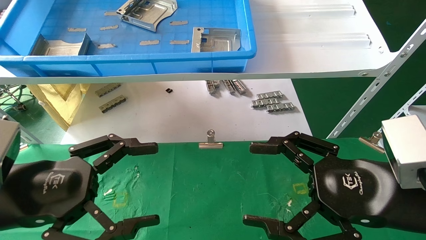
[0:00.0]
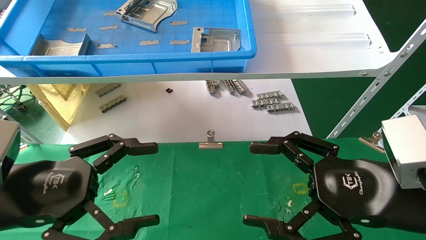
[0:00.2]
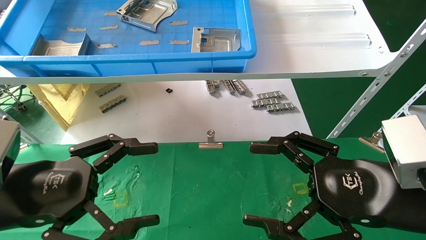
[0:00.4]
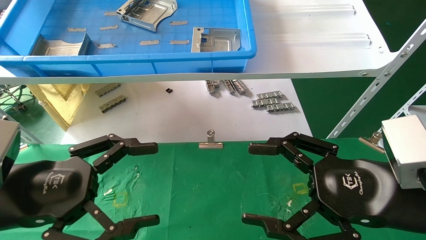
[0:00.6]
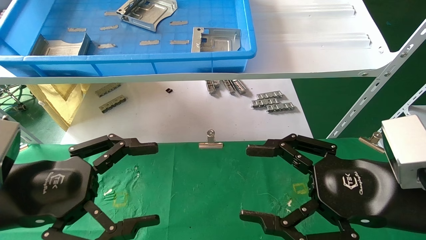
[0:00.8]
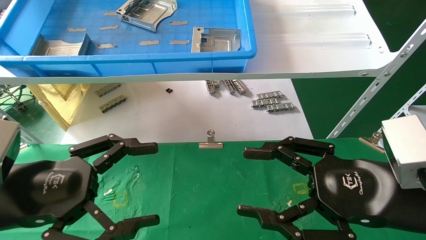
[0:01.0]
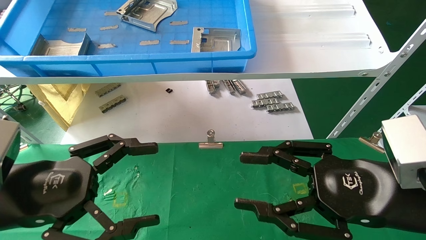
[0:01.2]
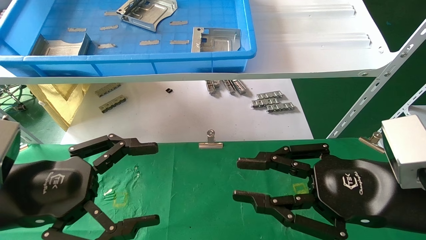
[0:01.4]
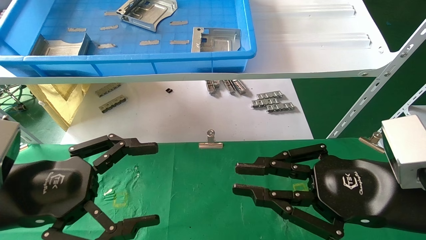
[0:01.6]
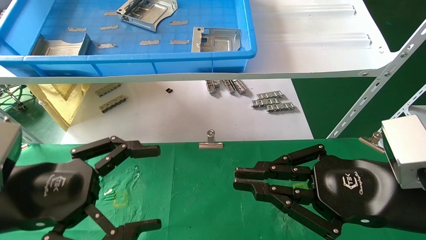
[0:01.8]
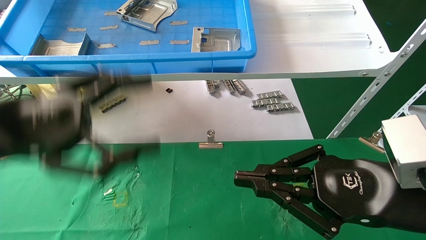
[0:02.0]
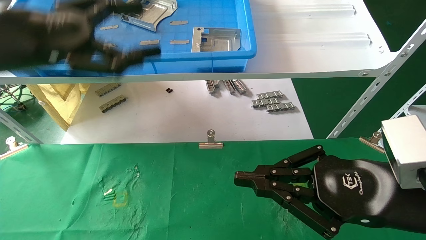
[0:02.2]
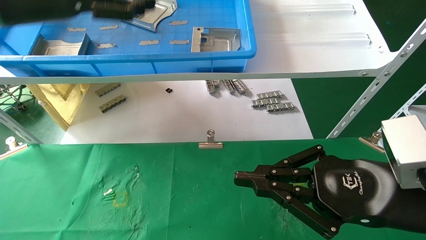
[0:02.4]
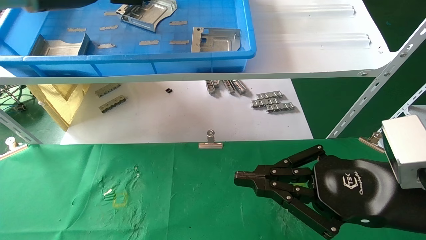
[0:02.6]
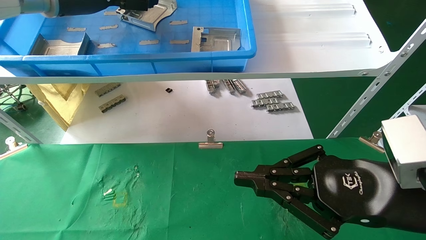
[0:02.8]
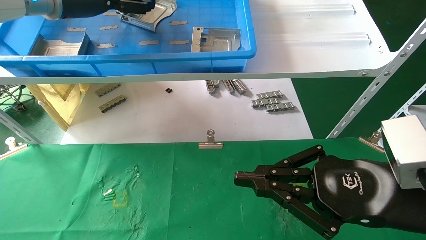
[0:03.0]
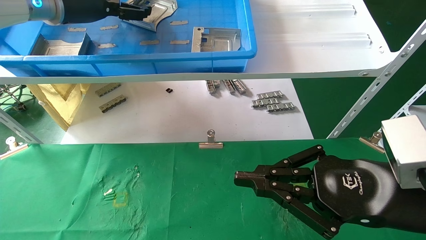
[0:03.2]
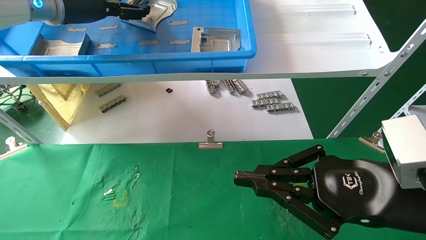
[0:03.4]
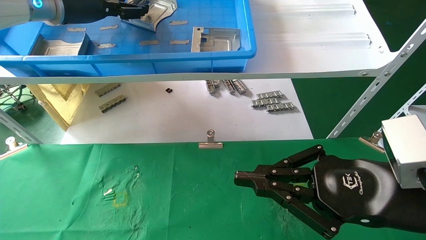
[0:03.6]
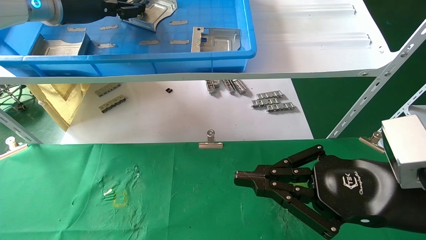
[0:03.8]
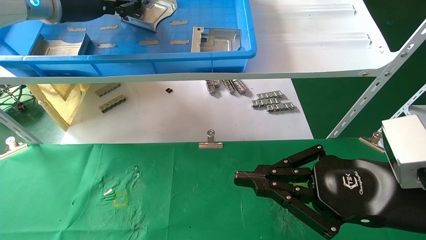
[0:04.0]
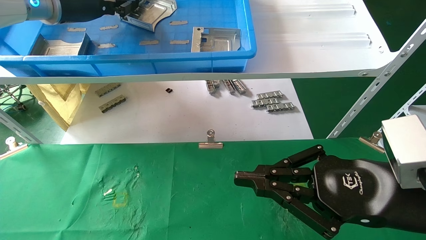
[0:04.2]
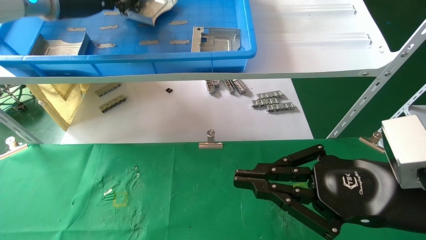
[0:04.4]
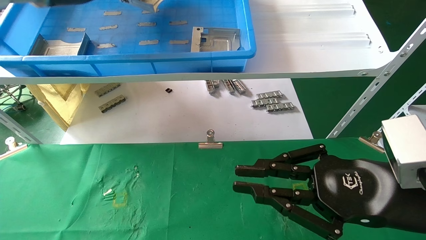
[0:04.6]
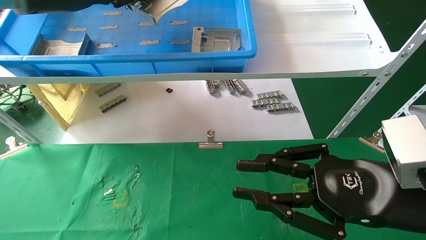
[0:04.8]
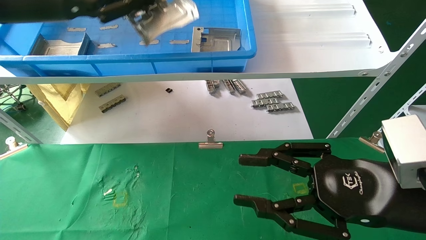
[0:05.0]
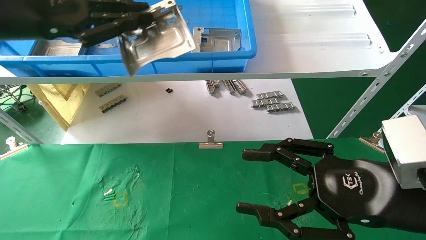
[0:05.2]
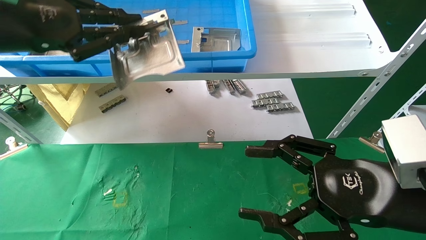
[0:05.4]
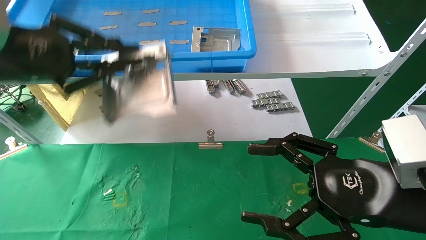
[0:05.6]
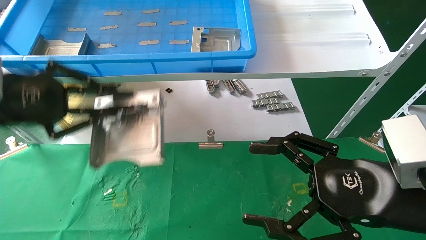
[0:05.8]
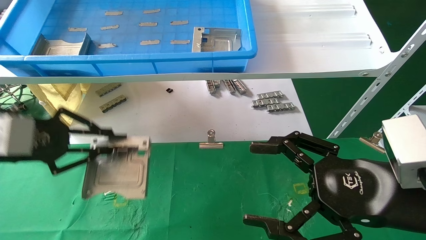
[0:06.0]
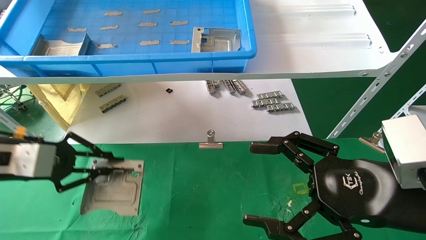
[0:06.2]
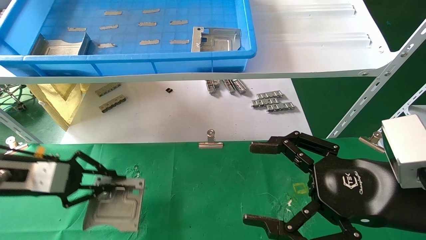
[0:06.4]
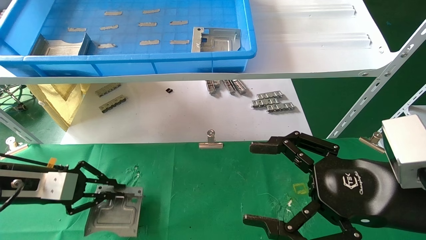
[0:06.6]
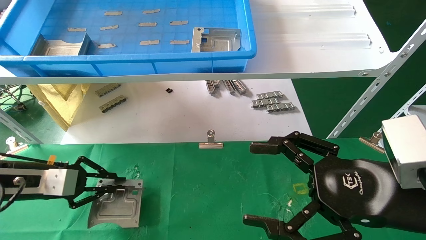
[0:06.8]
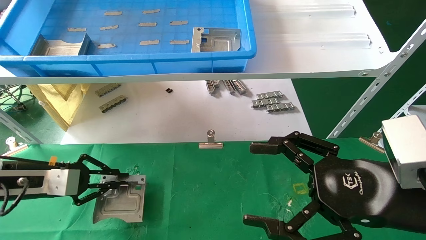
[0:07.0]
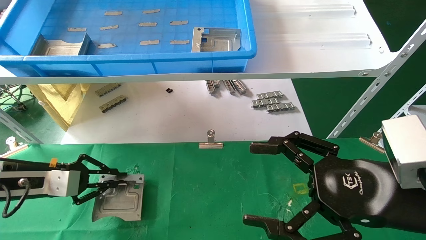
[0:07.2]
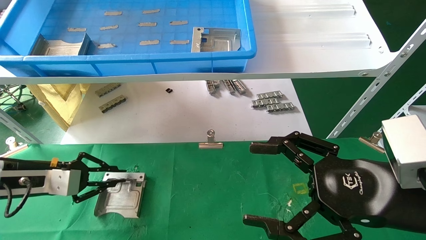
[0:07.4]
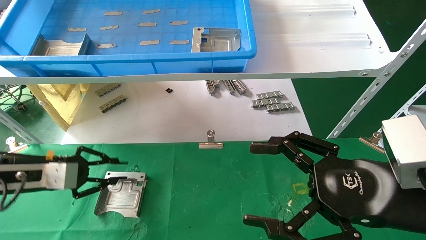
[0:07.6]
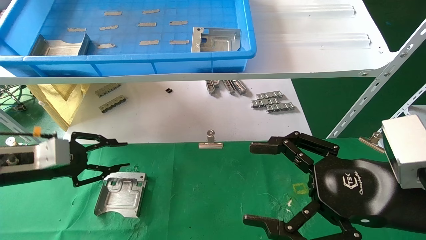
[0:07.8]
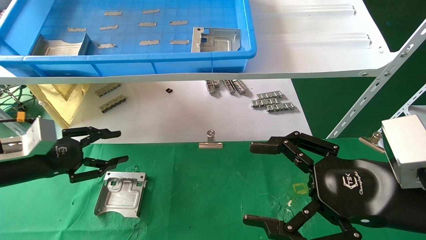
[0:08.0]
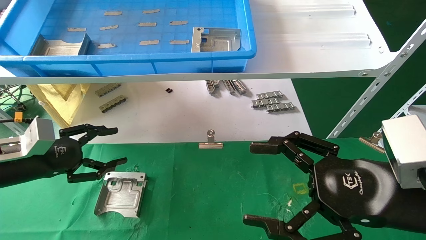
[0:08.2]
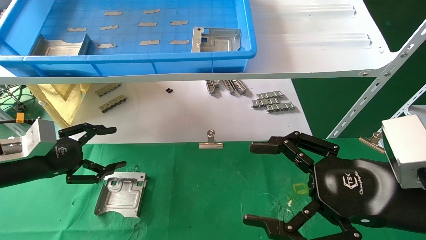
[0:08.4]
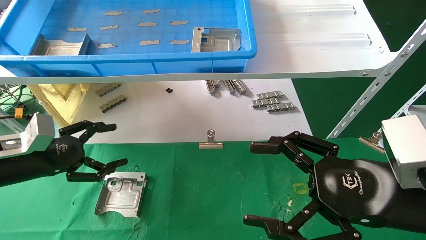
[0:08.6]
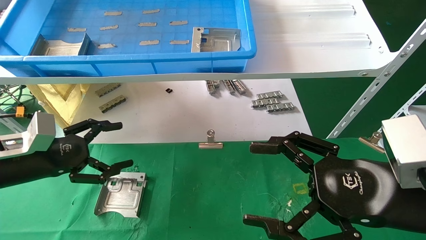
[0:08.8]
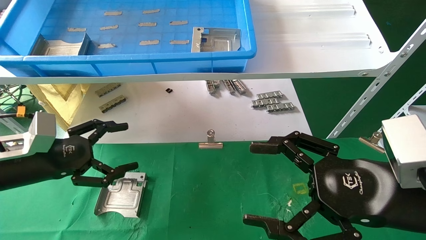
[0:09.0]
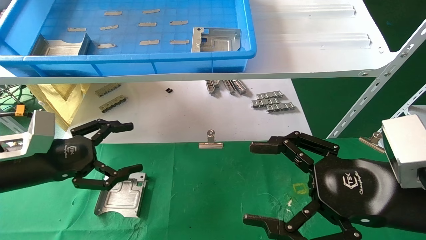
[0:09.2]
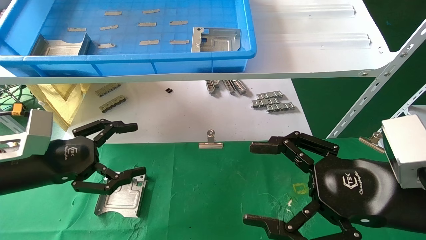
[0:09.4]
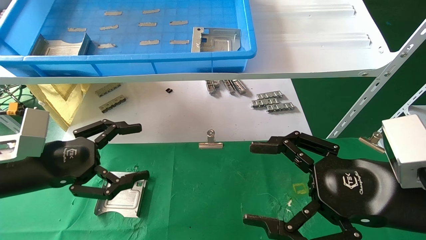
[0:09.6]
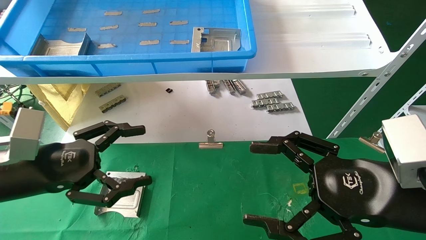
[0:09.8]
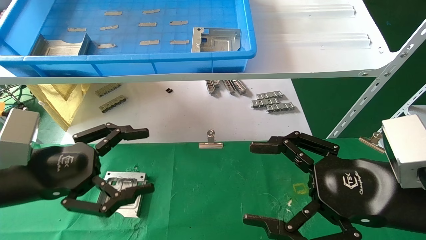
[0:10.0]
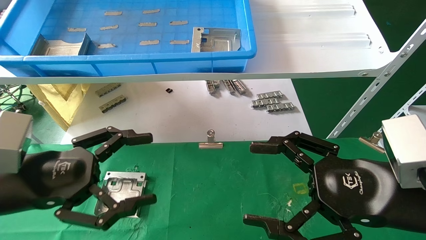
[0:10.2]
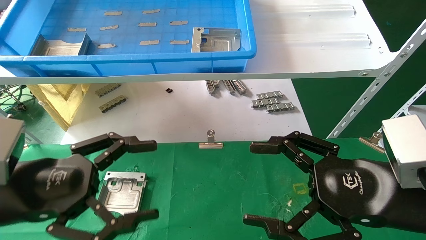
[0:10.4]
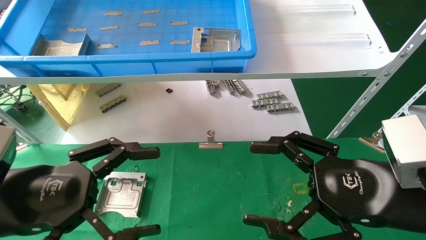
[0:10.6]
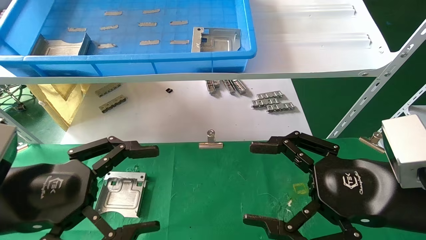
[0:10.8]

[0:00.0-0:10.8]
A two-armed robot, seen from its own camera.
Task of the whole recording: use the mechanical arm to pick up the parts and place them on the table.
Step, 1.6 to 4.6 s: Pick up the hard drive bracket from the feeding area.
Step, 4.8 to 7.6 s: Place the hard drive bracket into the box.
0.0 to 1.6 s: The right gripper closes.
1.6 to 3.0 s: The left gripper is displaced upward and forward by roughly 35 cm.
3.0 to 4.6 s: The left gripper closes up.
4.6 to 6.2 s: The left gripper is displaced downward and backward by approximately 25 cm. The right gripper opens.
6.2 to 7.8 s: The left gripper heads downward, covering some 5 cm.
7.8 to 9.2 s: The left gripper shifts by about 5 cm, and opens.
9.2 to 10.8 s: The left gripper heads backward and to the right, covering some 15 cm.

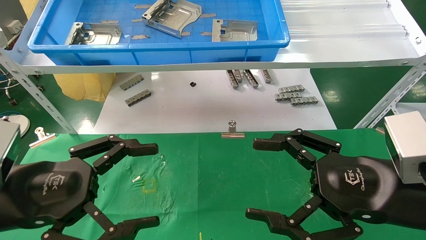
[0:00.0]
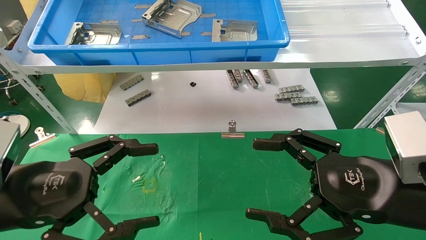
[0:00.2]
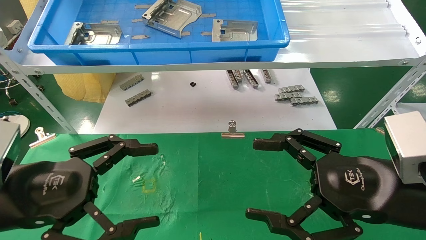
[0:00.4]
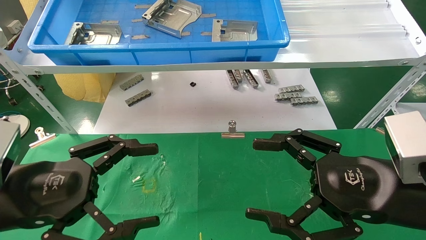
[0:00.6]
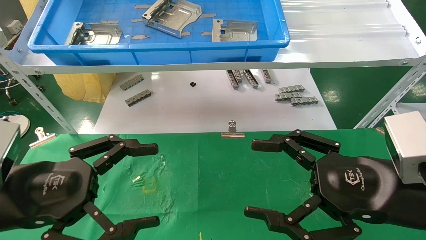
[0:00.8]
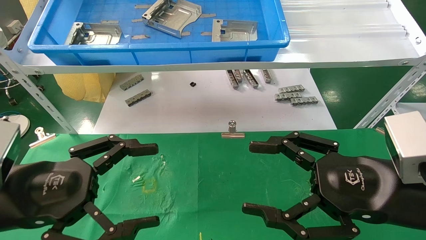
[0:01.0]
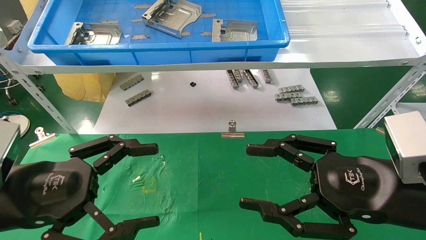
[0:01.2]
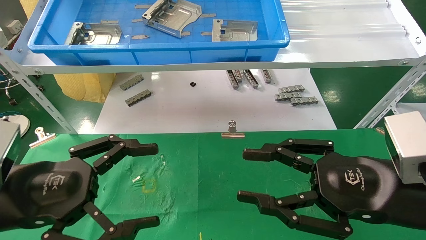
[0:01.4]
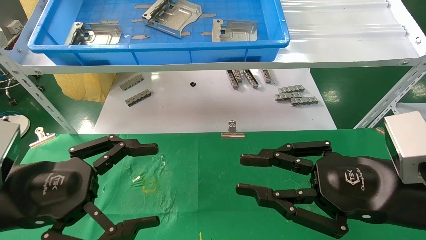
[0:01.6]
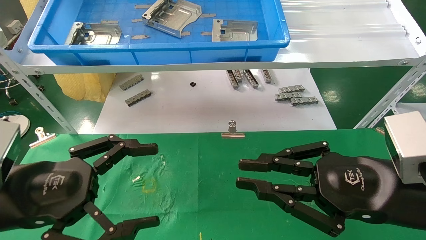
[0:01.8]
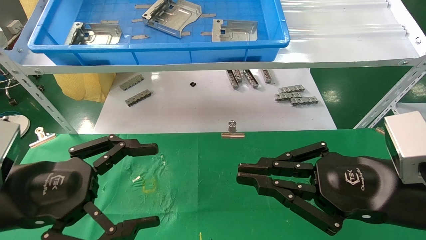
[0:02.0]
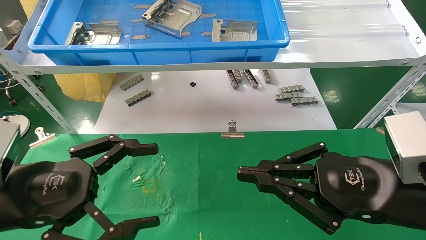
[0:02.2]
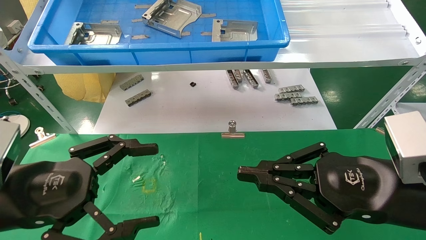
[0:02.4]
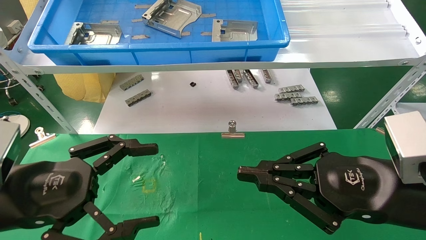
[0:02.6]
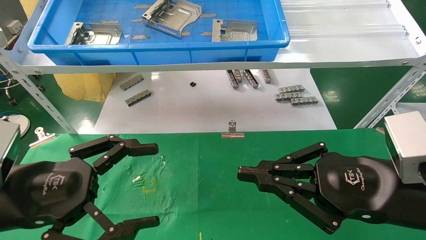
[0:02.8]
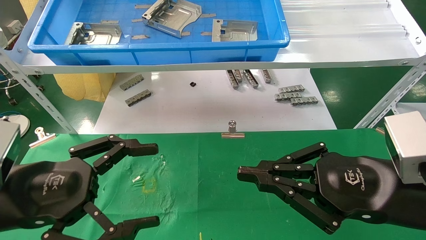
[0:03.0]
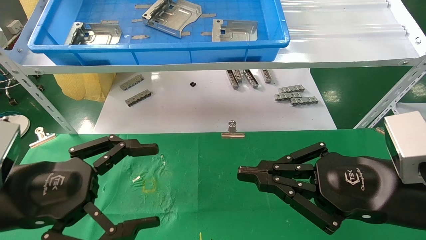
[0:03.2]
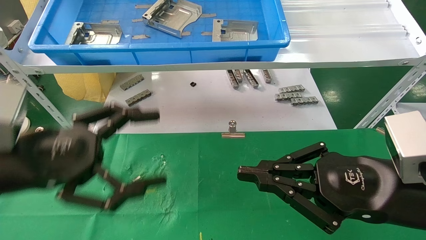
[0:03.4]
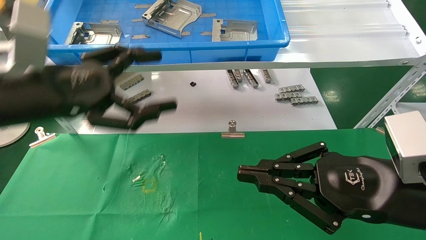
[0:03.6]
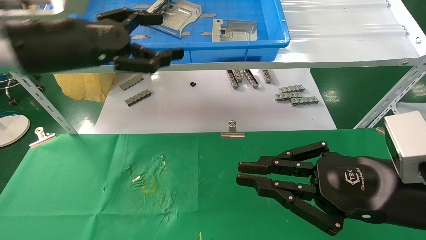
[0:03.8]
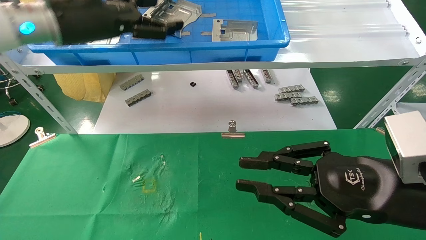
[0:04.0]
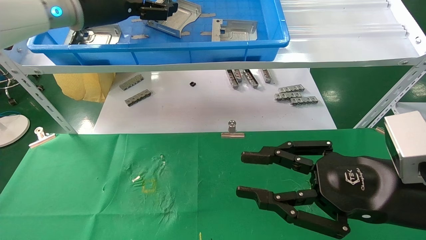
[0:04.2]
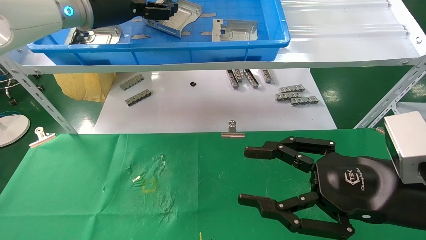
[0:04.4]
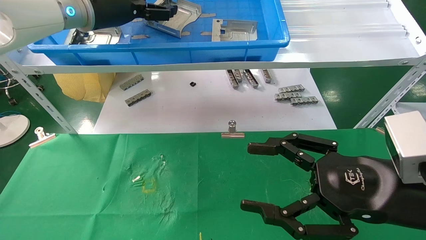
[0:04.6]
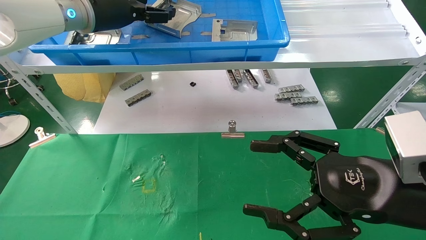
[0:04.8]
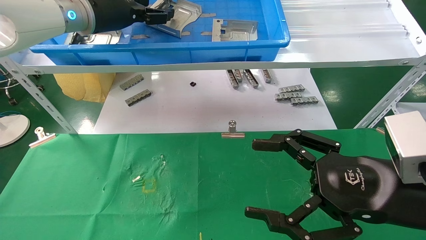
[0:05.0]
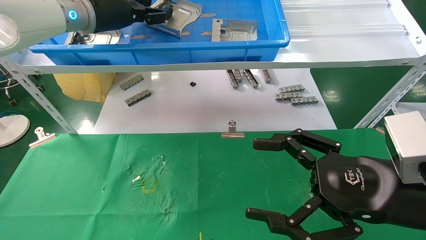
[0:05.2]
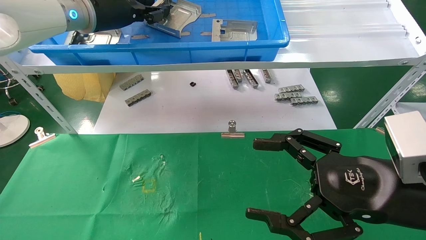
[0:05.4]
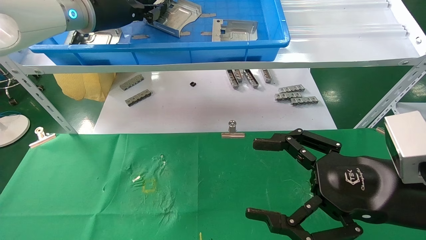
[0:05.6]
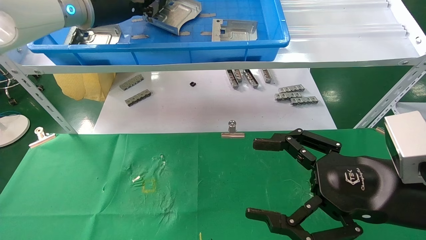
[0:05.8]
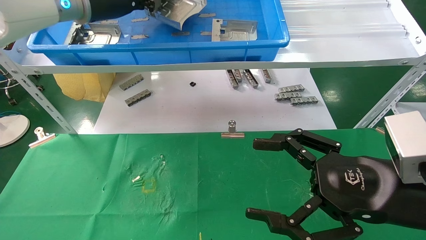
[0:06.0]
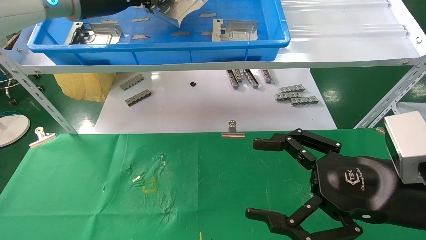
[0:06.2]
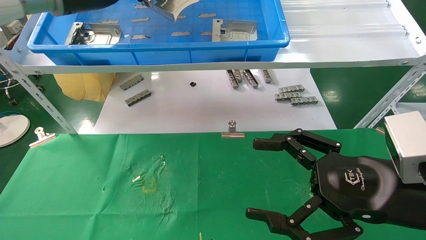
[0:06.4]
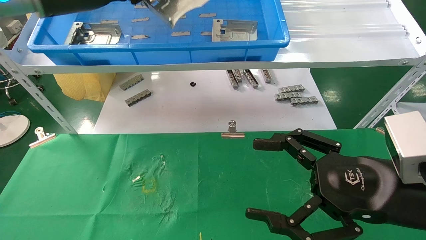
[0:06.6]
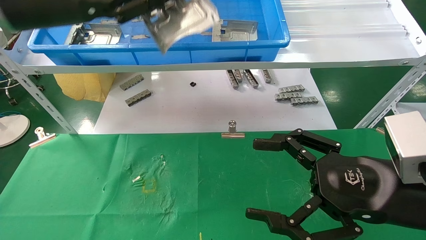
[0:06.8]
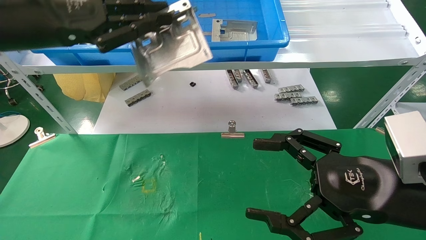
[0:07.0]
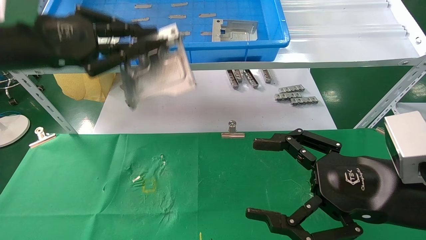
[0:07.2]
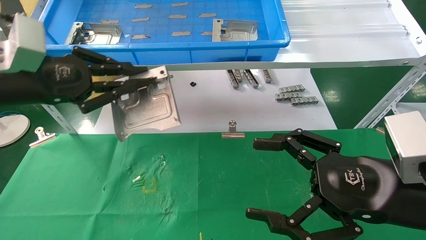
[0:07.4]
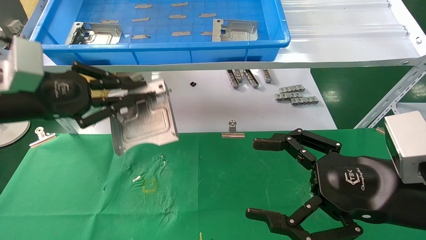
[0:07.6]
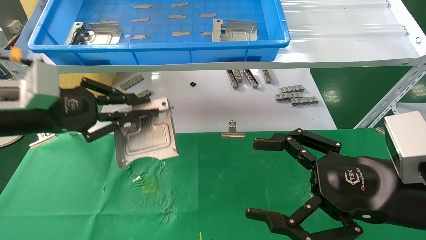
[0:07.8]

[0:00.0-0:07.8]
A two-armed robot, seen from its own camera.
Task of the whole recording: use the mechanical arm to pick up the parts and place them on the table.
Step, 3.8 to 5.8 s: Pick up the hard drive bracket from the feeding area.
0.0 to 1.6 s: The right gripper closes.
1.6 to 3.2 s: The right gripper closes up.
3.2 to 4.6 s: The left gripper moves forward and upward, roughly 30 cm; the right gripper opens up.
4.6 to 6.2 s: The right gripper opens its fingers, while the left gripper closes up.
6.2 to 7.8 s: The left gripper travels downward, backward and to the left by roughly 20 cm.
